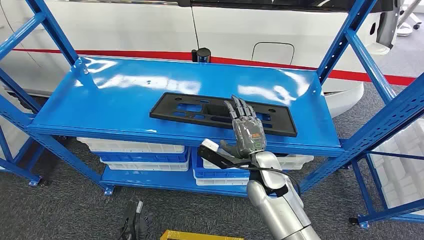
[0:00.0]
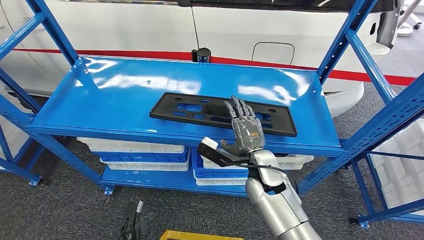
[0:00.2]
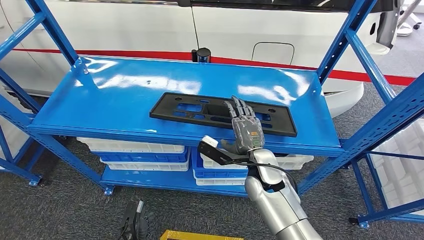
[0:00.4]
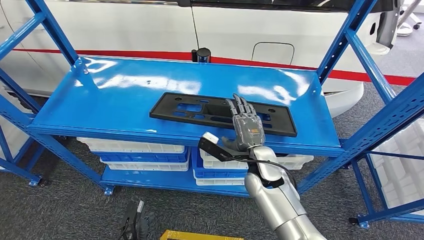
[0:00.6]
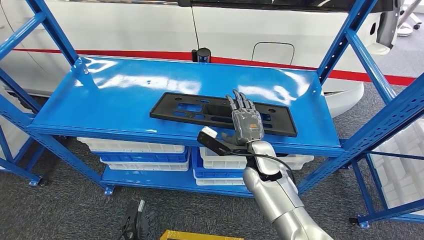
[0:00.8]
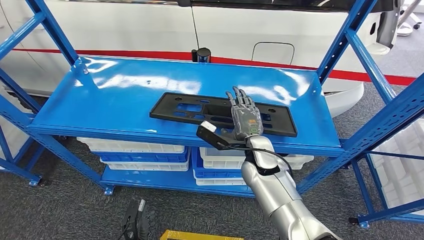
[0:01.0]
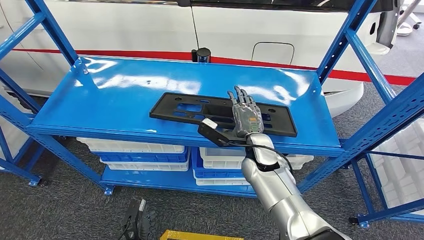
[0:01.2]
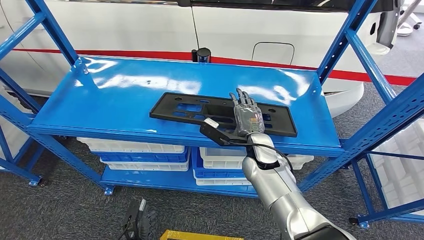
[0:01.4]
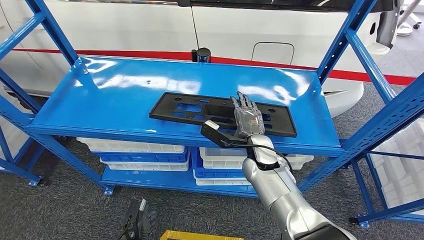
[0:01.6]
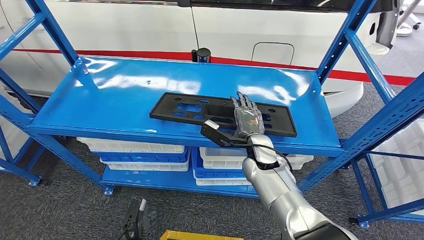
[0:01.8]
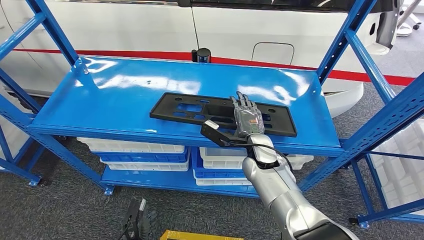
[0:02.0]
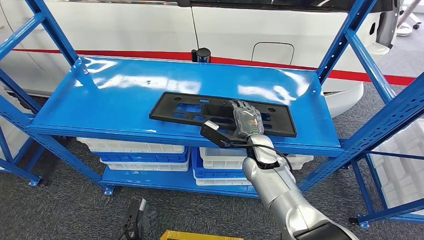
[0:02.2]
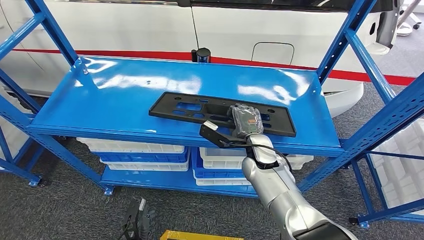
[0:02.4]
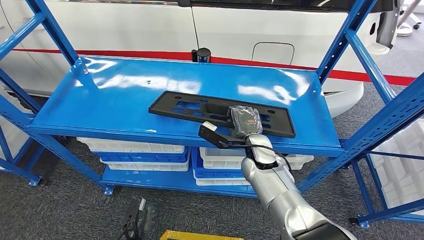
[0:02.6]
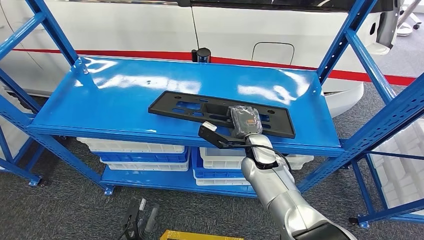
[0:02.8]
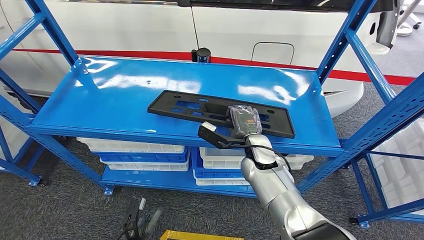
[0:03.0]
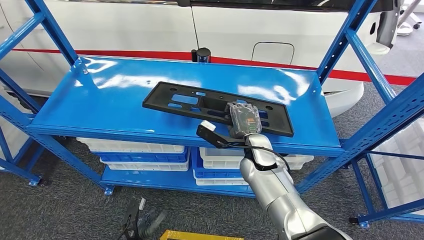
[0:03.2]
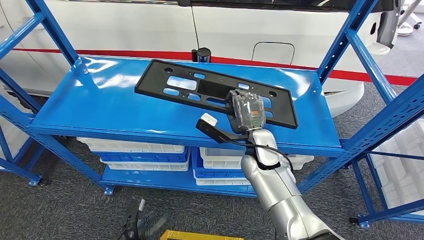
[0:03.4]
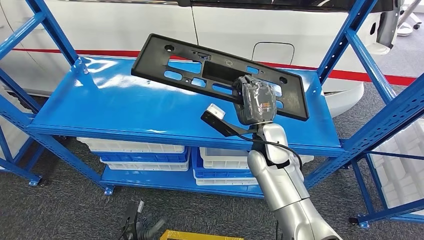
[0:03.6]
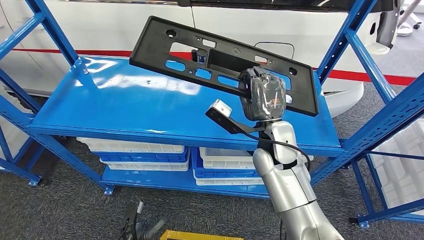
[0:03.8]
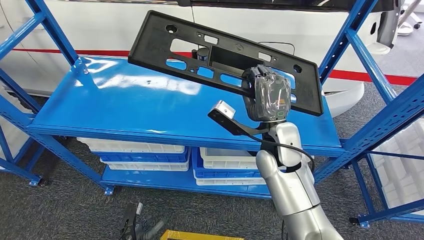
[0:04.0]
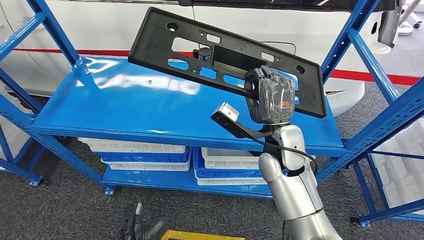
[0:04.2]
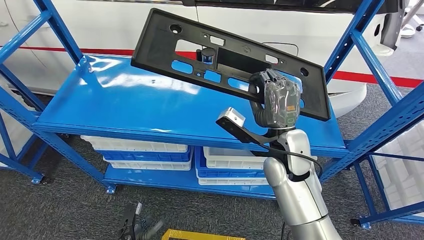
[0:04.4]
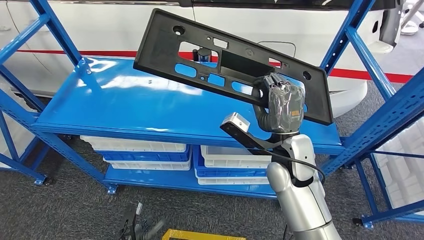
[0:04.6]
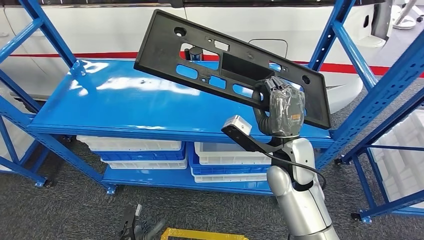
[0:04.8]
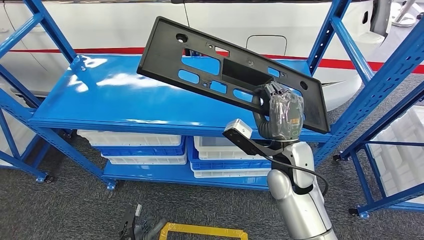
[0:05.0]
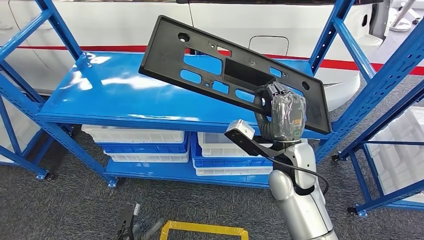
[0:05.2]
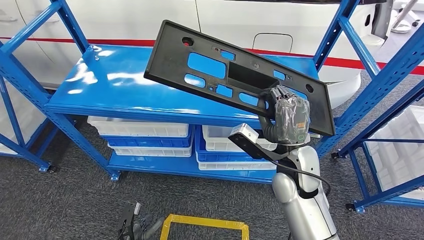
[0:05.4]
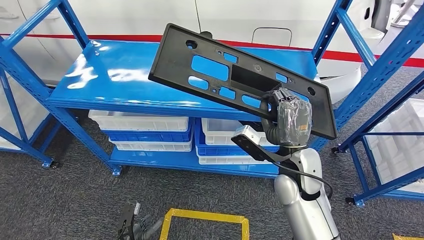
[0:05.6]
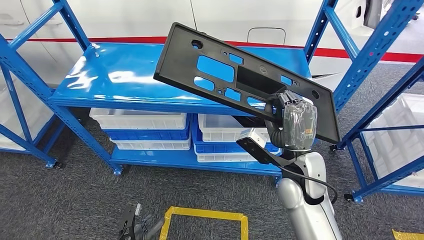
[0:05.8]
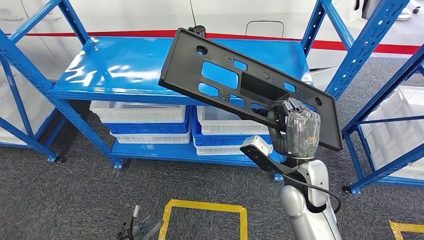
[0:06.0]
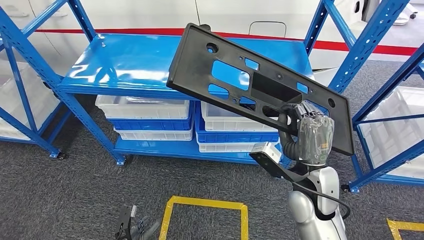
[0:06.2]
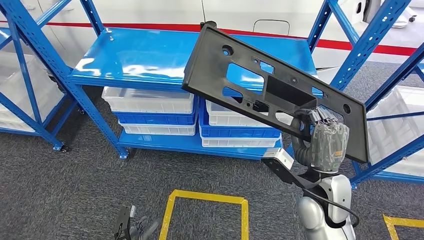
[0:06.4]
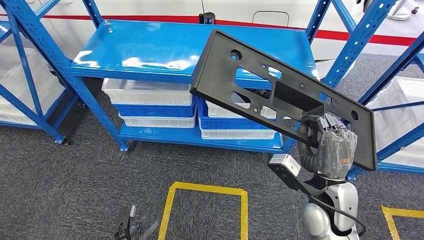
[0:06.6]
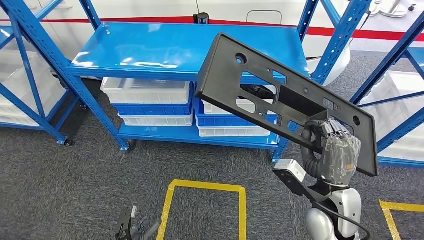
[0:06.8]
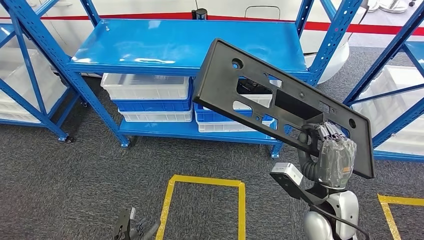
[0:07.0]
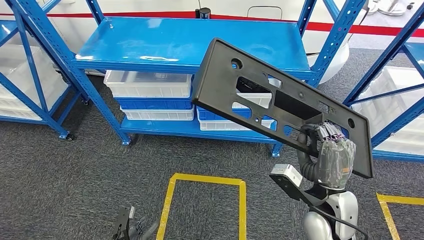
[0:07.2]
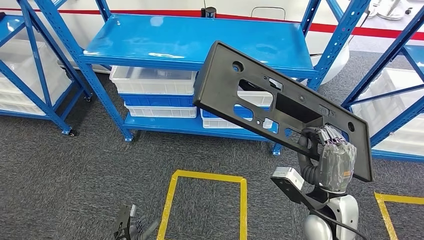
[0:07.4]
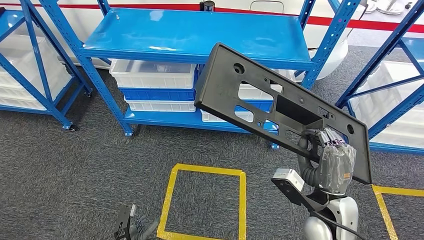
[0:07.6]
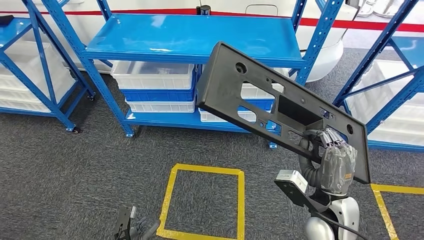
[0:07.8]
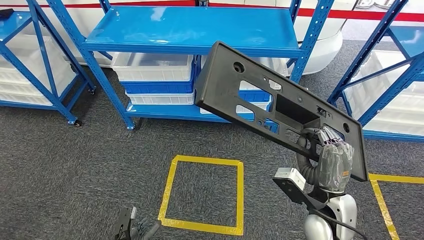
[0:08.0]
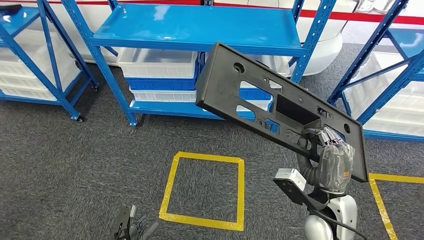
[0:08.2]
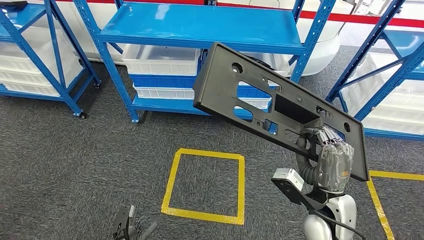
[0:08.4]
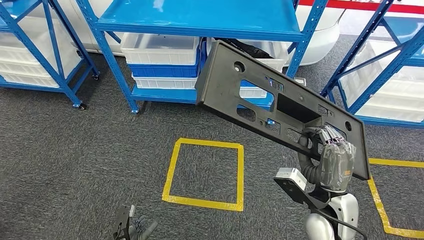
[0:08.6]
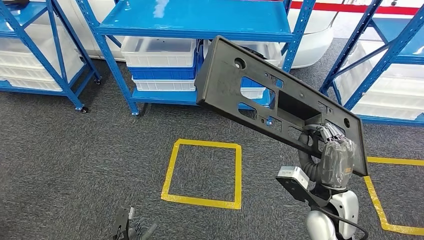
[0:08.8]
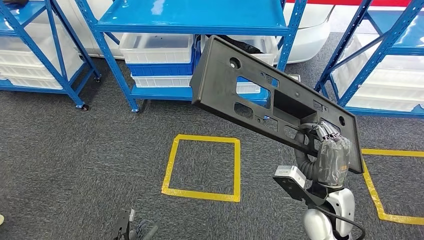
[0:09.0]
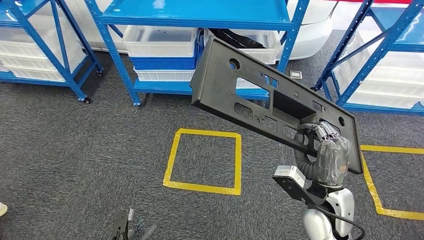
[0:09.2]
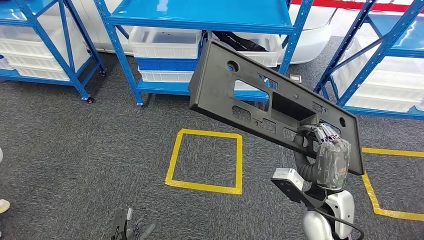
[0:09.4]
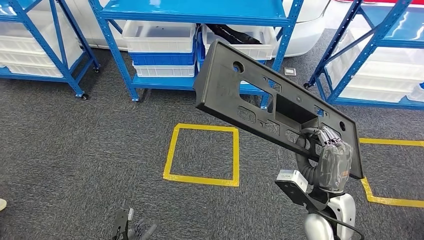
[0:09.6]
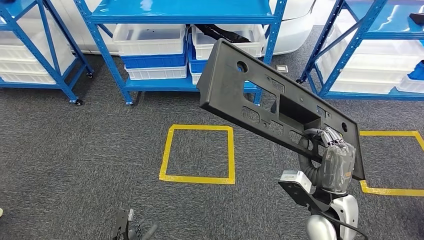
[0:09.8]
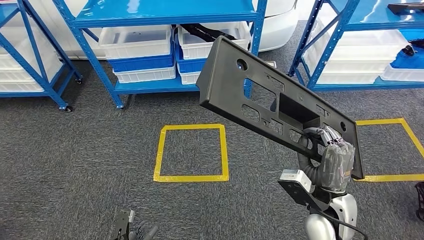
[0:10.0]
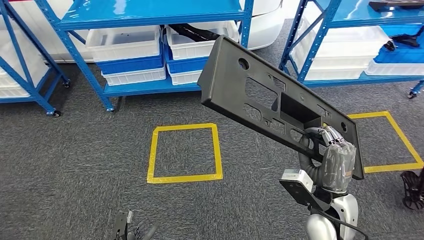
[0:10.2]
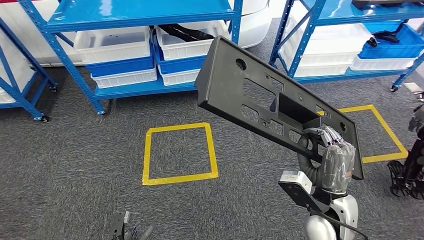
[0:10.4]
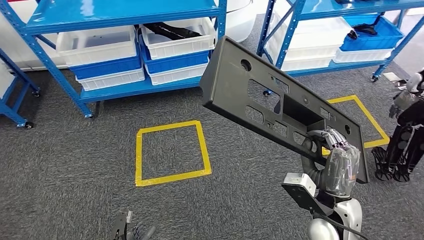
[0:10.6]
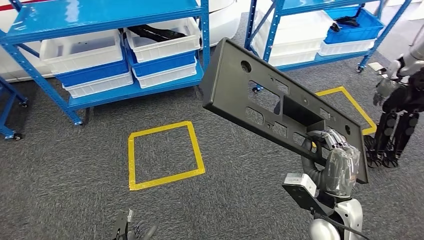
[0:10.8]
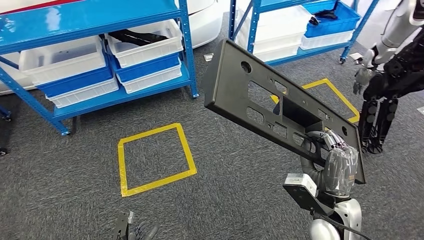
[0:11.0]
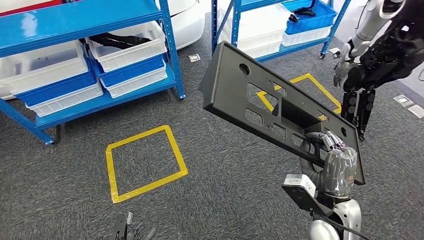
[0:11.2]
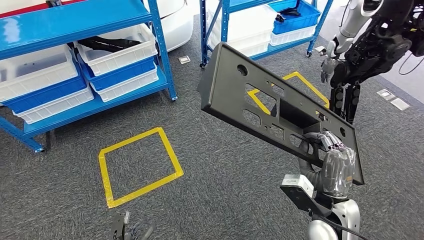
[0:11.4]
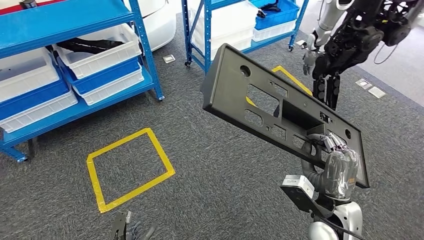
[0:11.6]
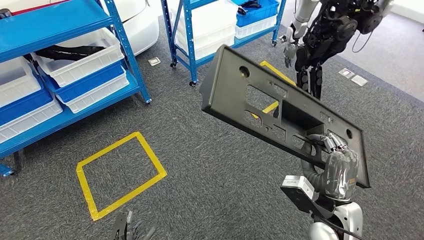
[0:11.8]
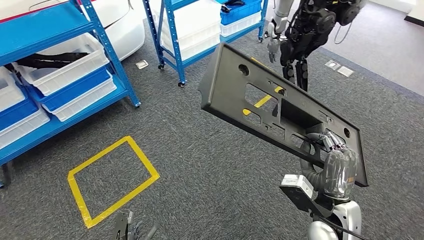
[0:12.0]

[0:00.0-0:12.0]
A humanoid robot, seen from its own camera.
Step, 0:00.0 to 0:03.6: Pick up the large material from the shelf.
0:01.6 to 0:03.0: Both hands stay about where they are.

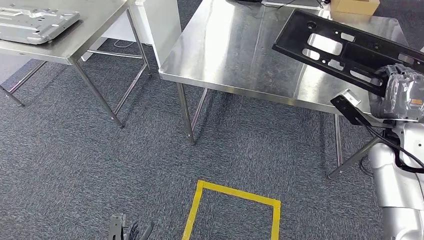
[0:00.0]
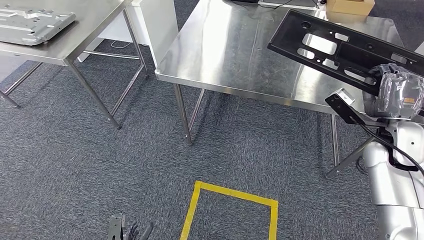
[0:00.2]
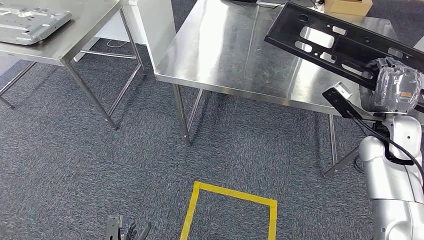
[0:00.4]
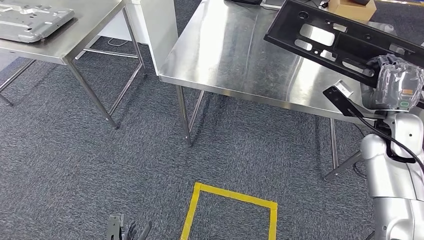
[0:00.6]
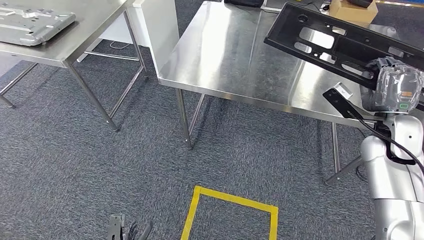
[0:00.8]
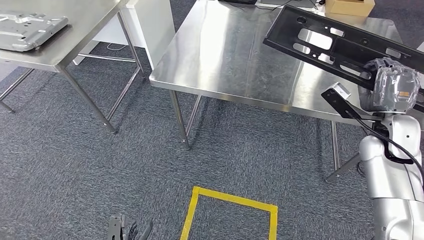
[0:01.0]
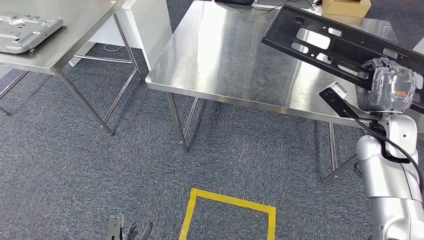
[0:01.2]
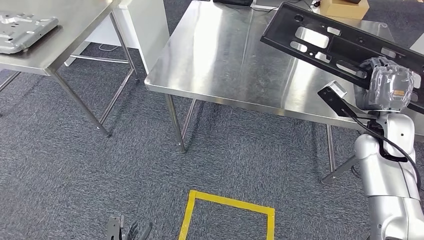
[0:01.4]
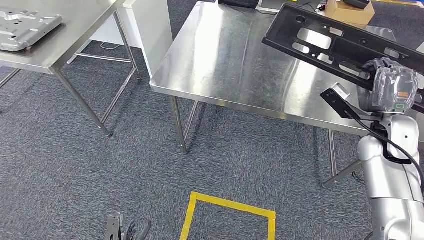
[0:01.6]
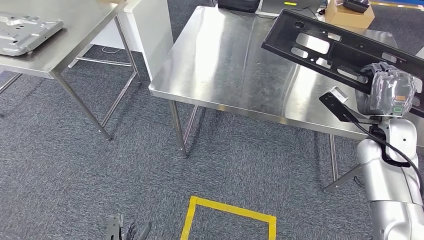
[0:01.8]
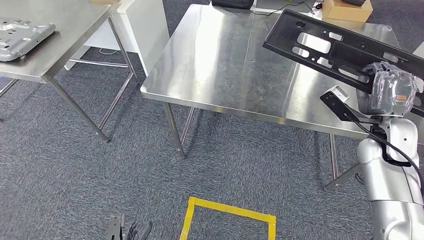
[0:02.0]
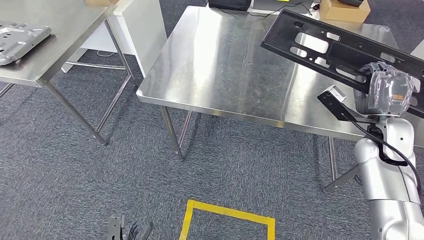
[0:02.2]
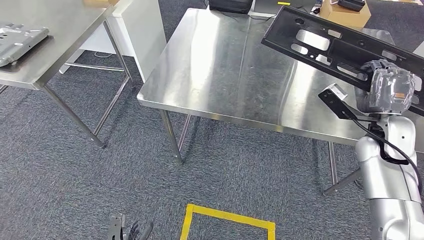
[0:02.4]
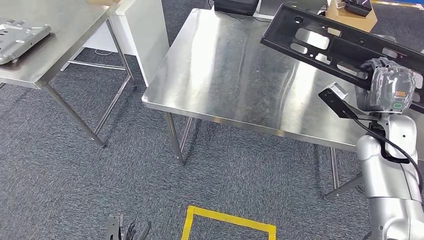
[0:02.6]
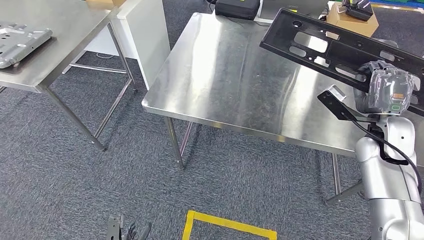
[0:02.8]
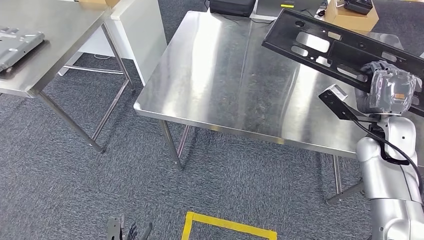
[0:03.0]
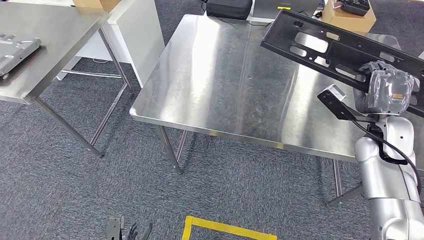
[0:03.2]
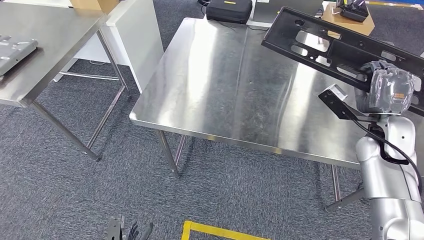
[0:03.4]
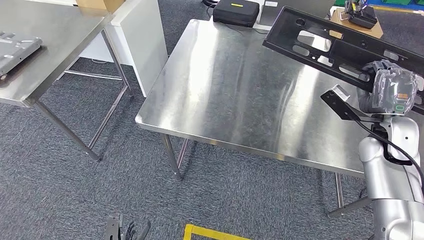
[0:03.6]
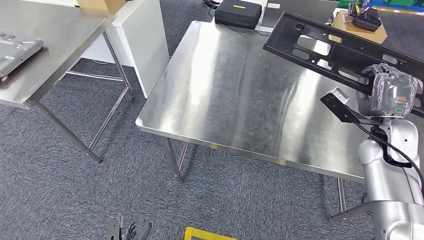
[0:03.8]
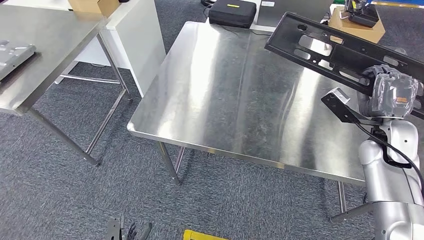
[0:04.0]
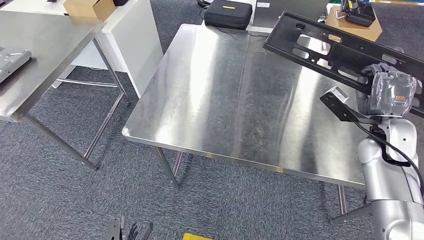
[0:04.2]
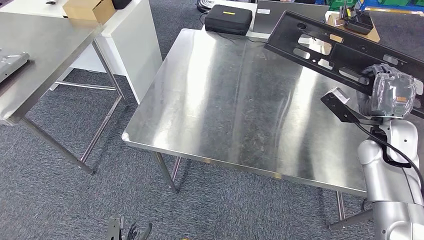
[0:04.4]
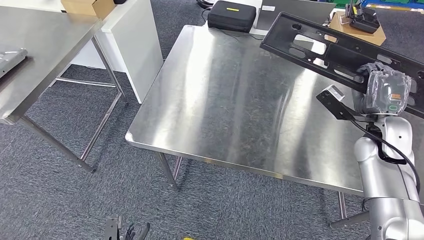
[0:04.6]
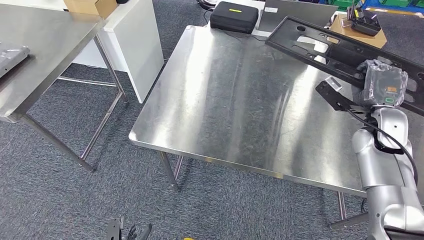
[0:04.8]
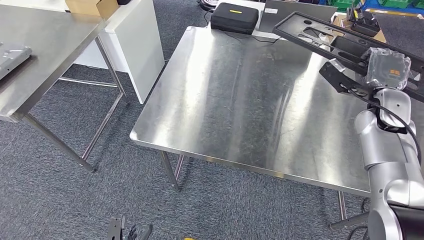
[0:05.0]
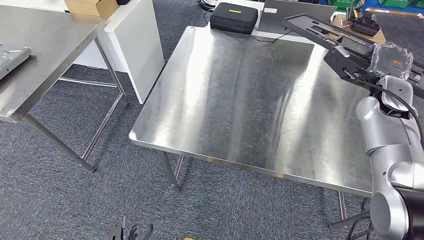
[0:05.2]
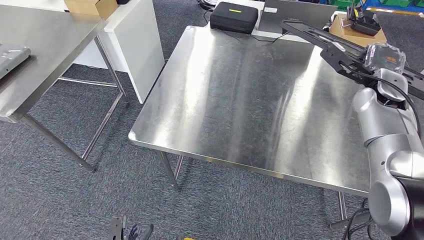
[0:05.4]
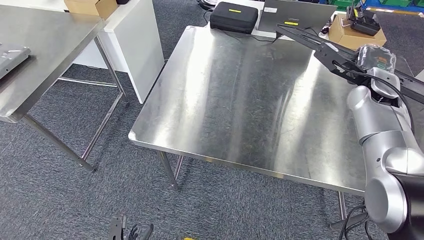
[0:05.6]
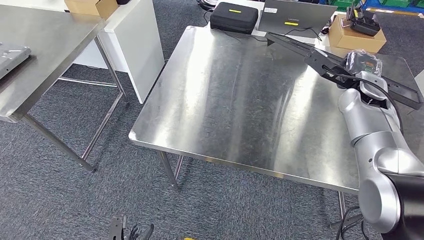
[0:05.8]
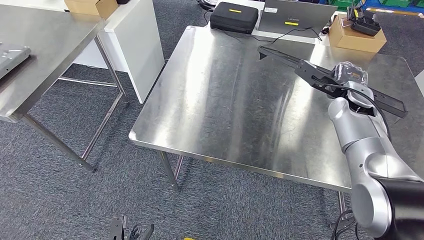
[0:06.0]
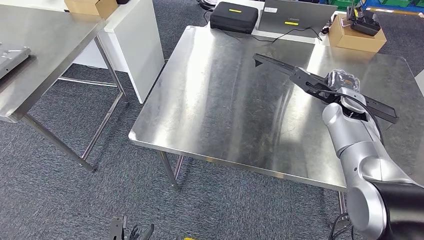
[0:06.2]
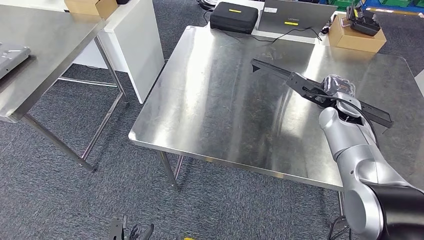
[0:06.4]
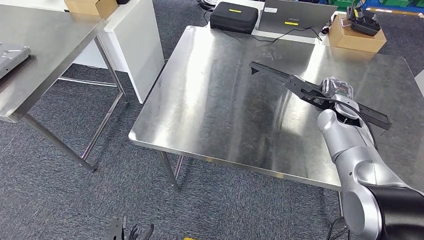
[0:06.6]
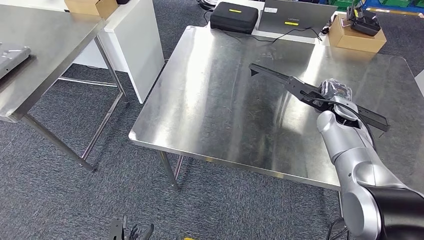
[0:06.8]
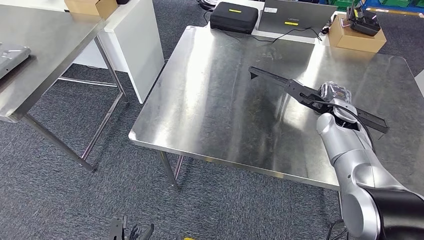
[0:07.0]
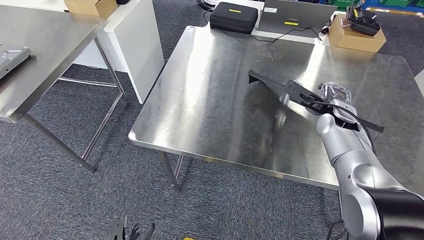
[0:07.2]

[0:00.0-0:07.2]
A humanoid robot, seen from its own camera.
0:05.8 to 0:07.2: The right hand travels downward by roughly 10 cm.
